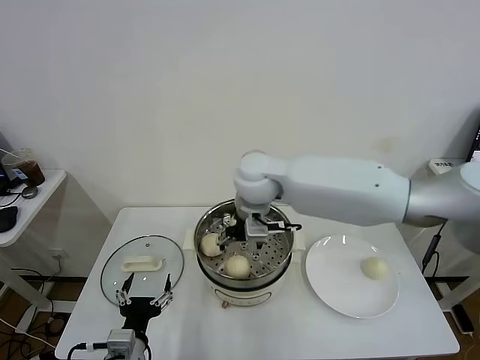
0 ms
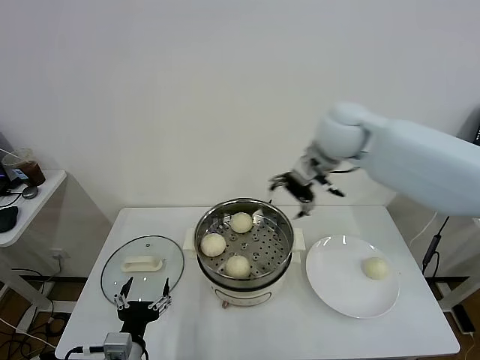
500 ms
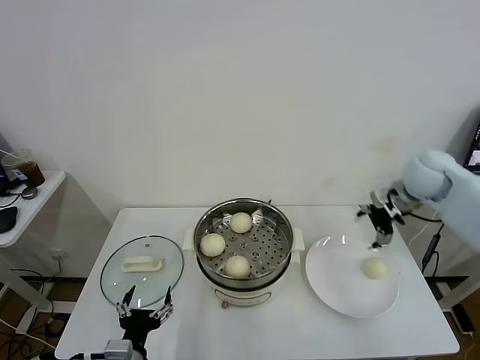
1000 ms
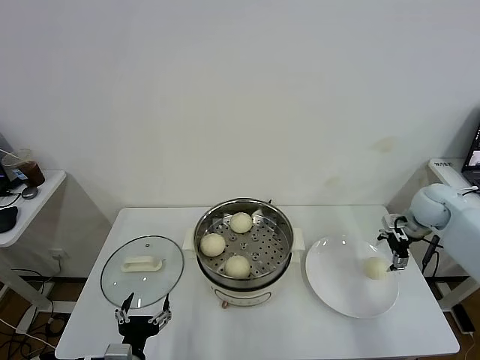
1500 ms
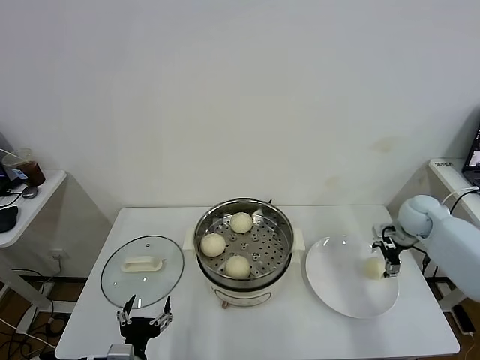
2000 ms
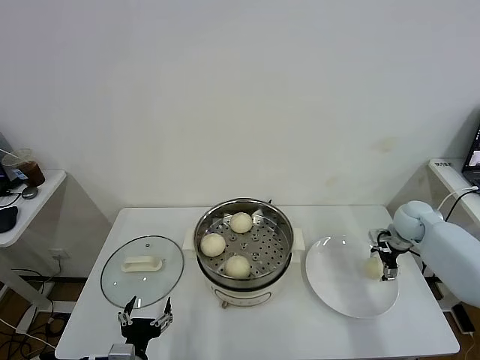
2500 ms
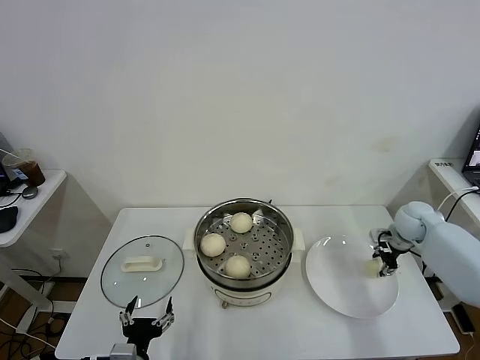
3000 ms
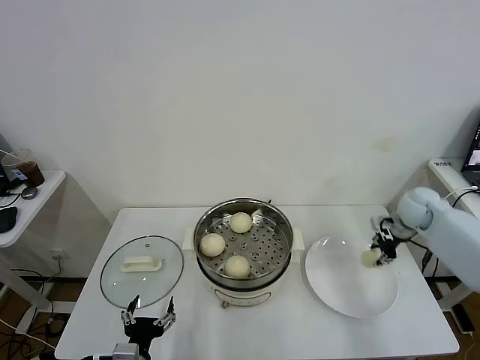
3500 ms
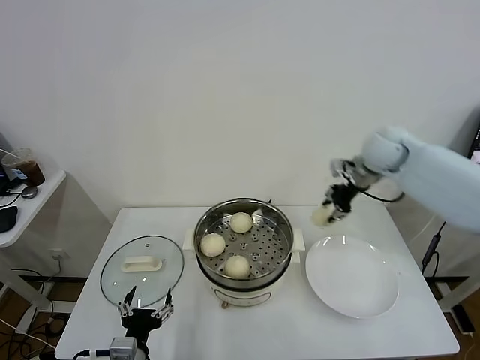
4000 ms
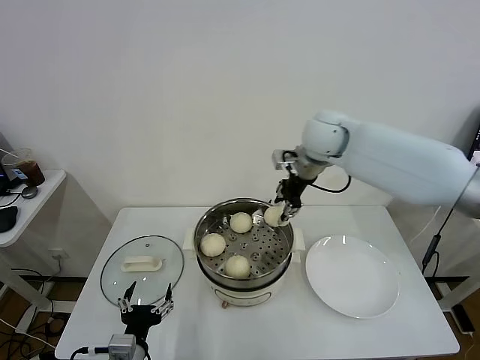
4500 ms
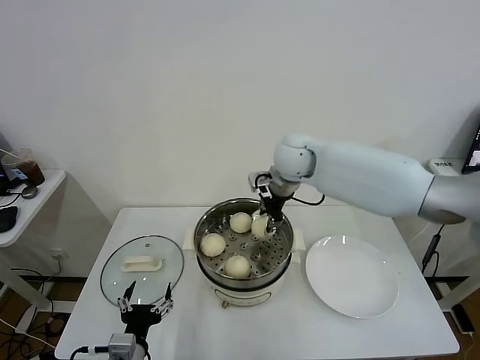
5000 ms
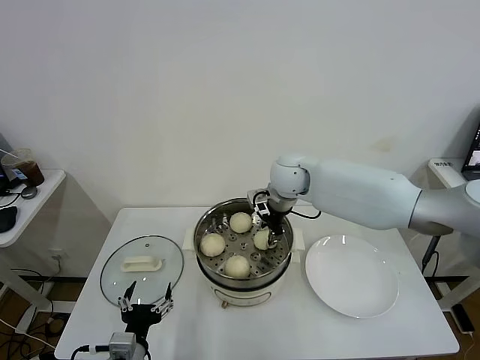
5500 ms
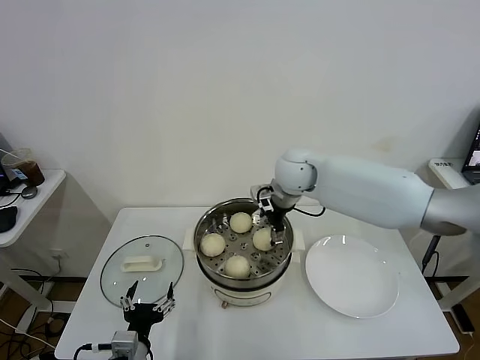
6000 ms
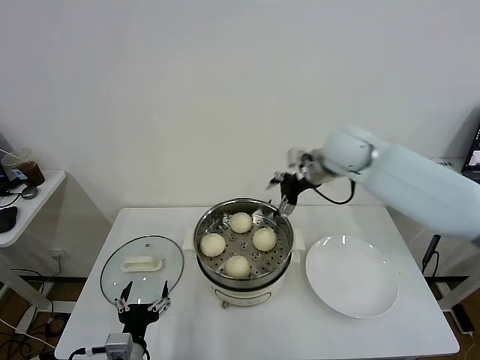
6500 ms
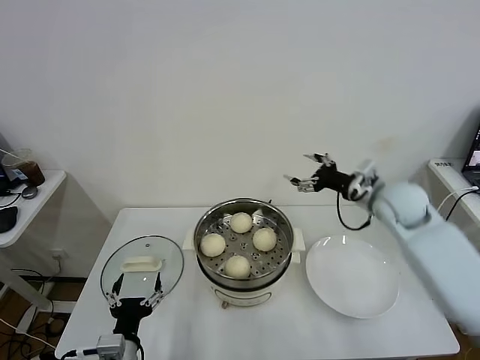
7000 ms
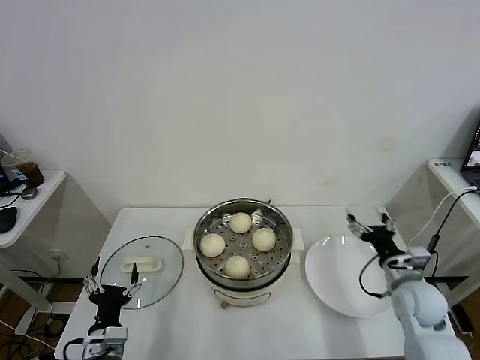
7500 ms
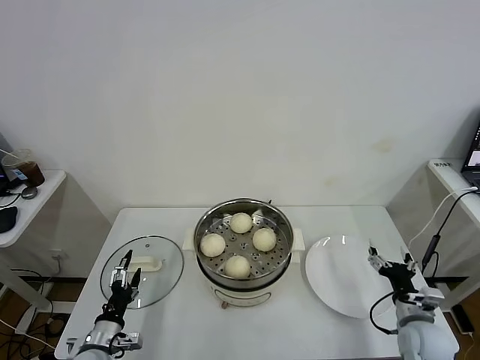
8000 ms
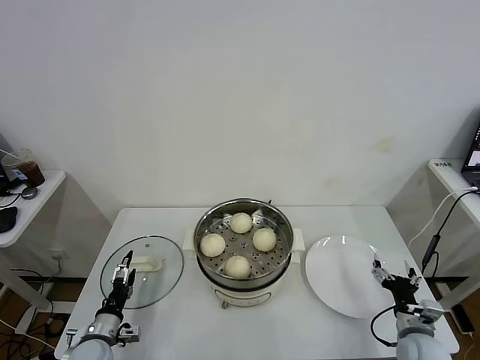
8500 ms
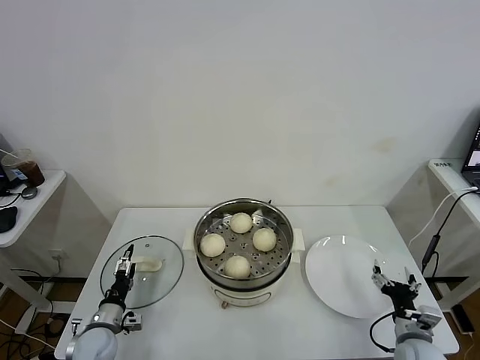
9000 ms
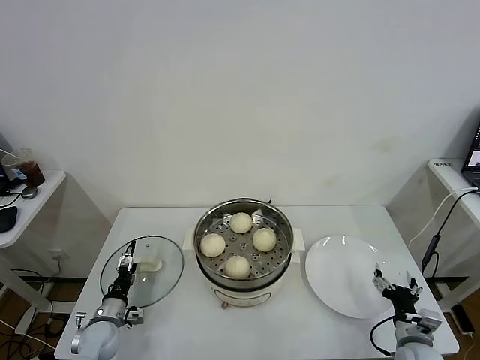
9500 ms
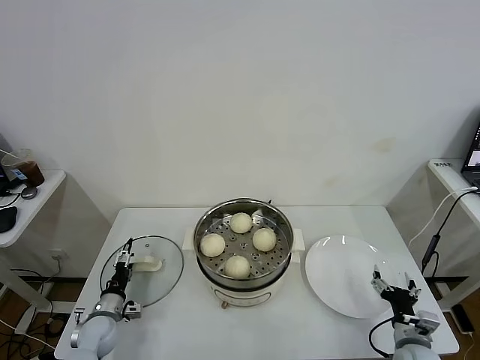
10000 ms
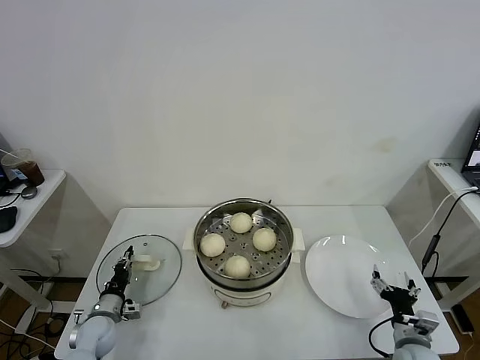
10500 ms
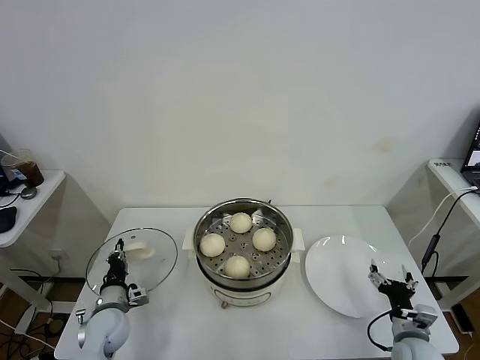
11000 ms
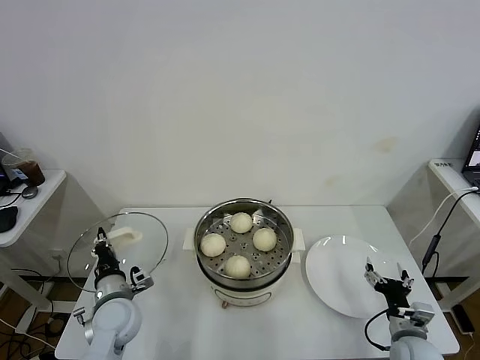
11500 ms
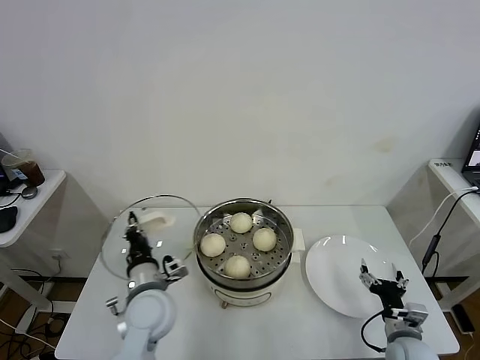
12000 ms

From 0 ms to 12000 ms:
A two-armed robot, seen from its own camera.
Task of the whole recording: take steamed baozi put them in steamer.
Step, from 0 ms to 2500 ms: Grasp the baozi in the plate with right gripper.
Step, from 3500 ms to 6000 ms: Place the baozi on the steamer with right gripper.
Step, from 6500 ms to 10500 ms: Grasp the pot lid with left gripper.
From 0 ms to 2000 ms: The right gripper is displaced to the right and downward by about 40 cm.
From 2000 ms to 4000 ms: The right gripper is displaced upward and to the left by approximately 25 cm, and closes its fingers.
From 4000 ms to 6000 ms: The right gripper is displaced to the left by approximately 20 cm, and opens up.
From 6000 ms to 8000 ms: The left gripper heads to the left, downward and forward, covering roughly 15 cm. The right gripper travels backward, to the right and downward by approximately 50 cm.
From 8000 ms to 10000 ms: The left gripper shifts some 10 cm forward and downward. The right gripper ends up approximately 5 cm from where it was.
From 10000 ms to 12000 ms: The left gripper goes some 25 cm upward and to the right, and closes its fingers.

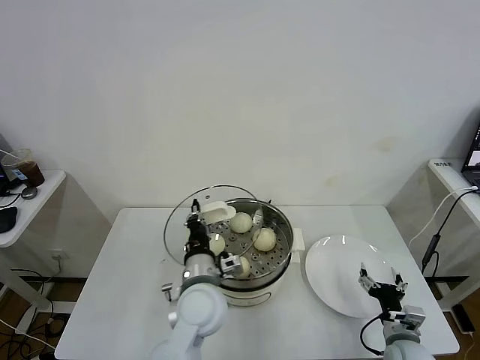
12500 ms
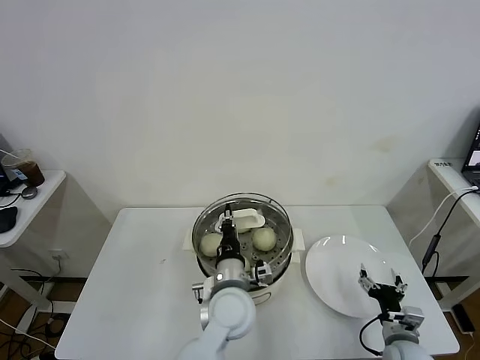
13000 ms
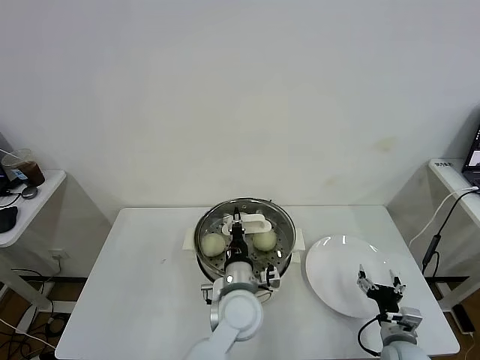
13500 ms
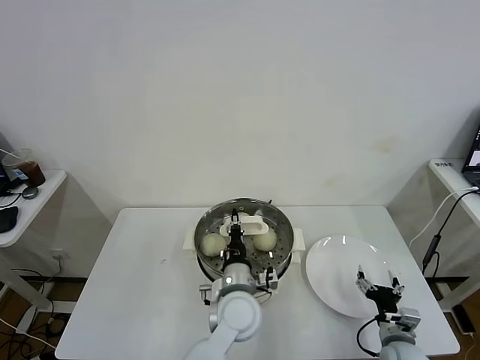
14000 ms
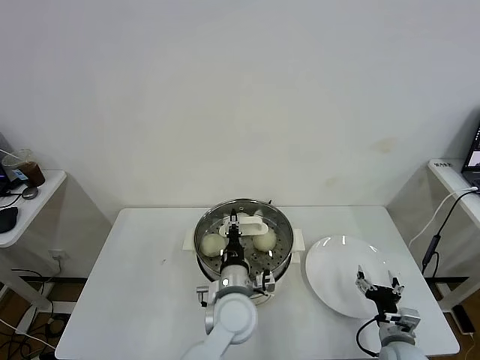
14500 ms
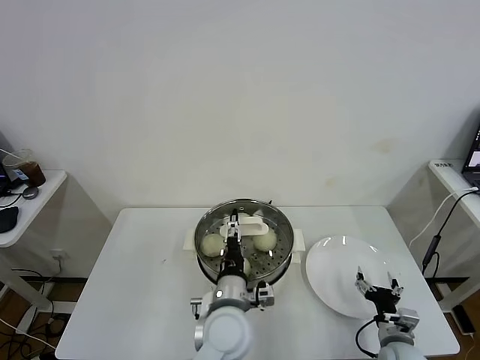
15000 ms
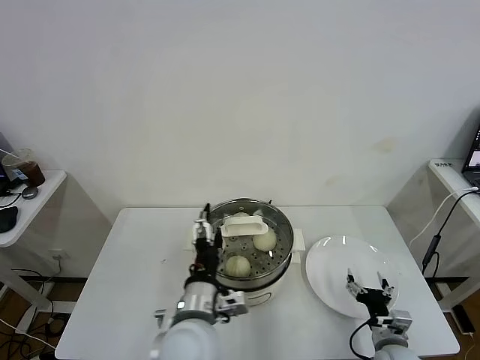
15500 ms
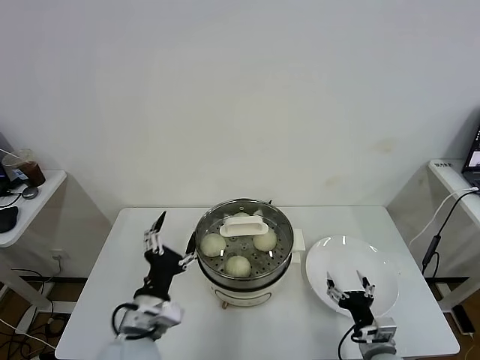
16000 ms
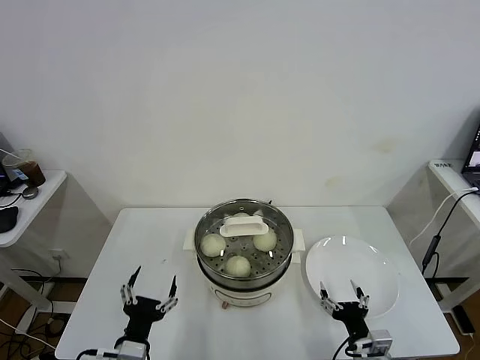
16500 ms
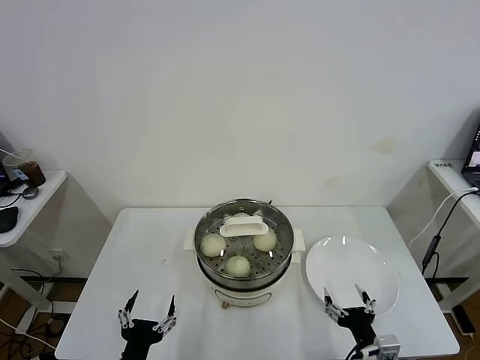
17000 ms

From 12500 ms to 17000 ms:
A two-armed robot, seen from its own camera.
Task of the whole recording: take steamed baozi put them in steamer.
Step, from 12500 ms to 14500 ms: Place the pot lid on the steamer with left gripper.
From 12500 ms to 14500 ms: The left gripper moves to the right and downward, about 10 cm.
From 14500 ms to 17000 ms: The left gripper is displaced to the left and backward by some 30 cm, and opens its fingers. Meanwhile the right gripper shifts about 10 cm backward and to the left.

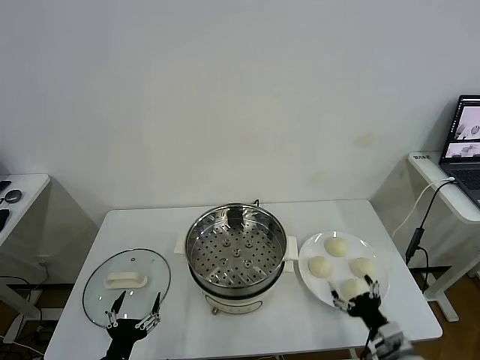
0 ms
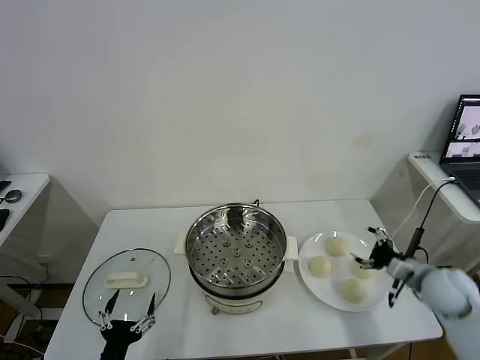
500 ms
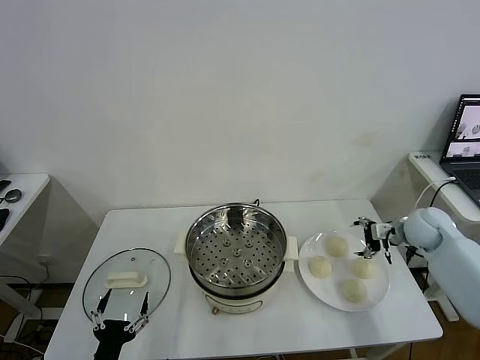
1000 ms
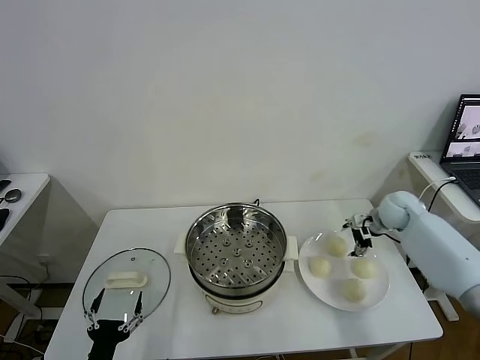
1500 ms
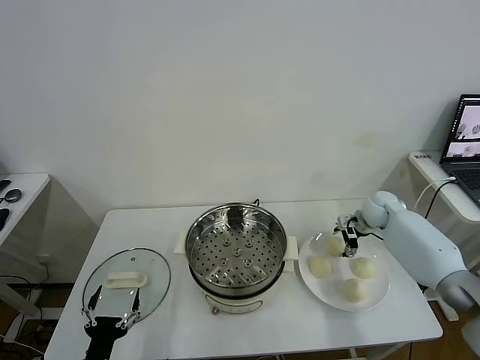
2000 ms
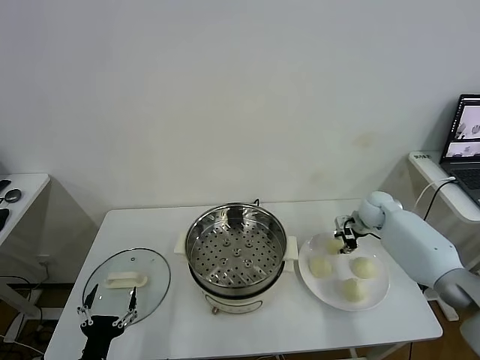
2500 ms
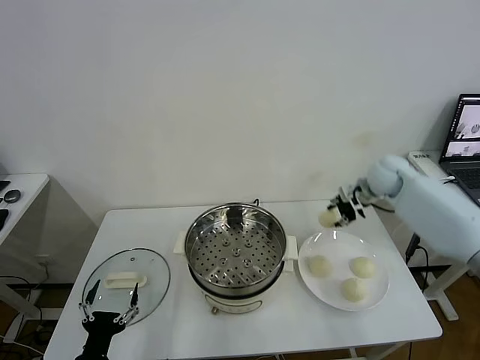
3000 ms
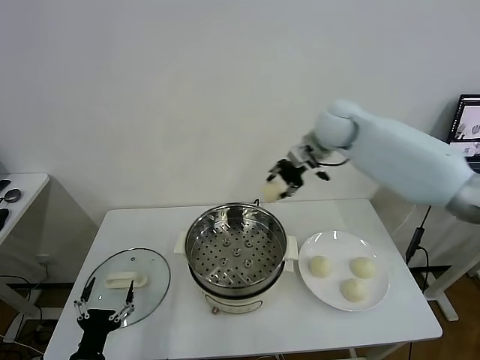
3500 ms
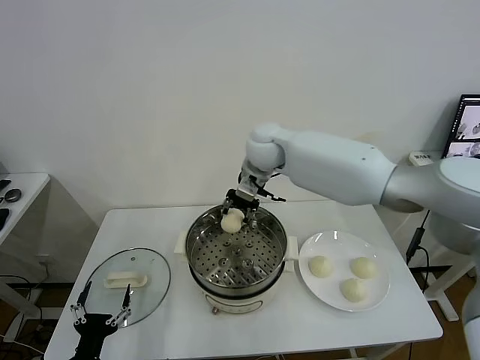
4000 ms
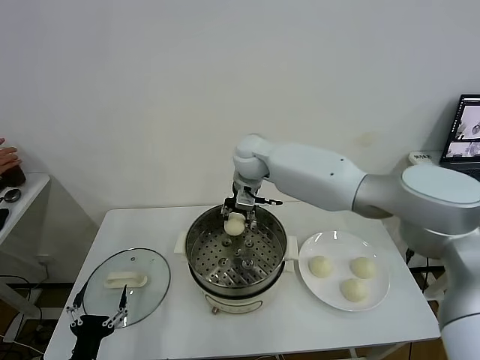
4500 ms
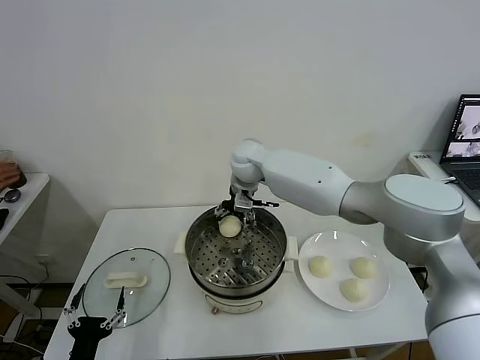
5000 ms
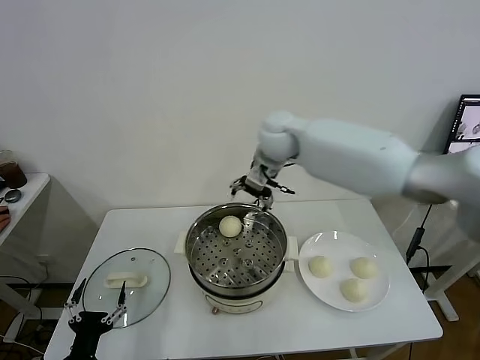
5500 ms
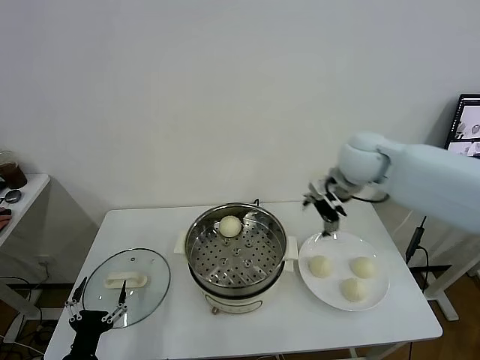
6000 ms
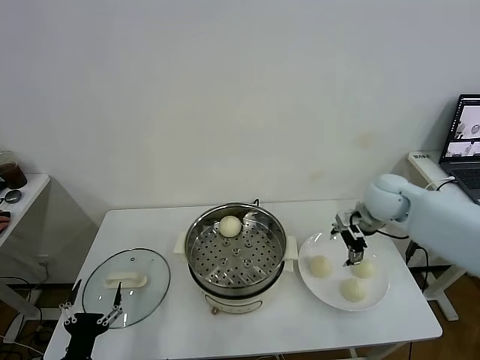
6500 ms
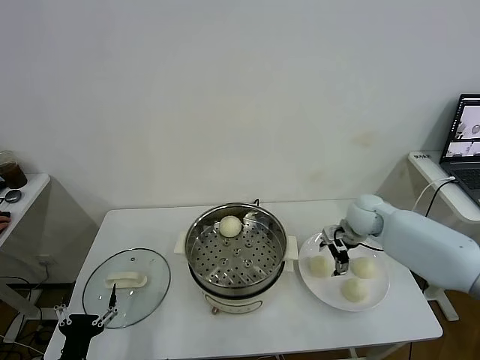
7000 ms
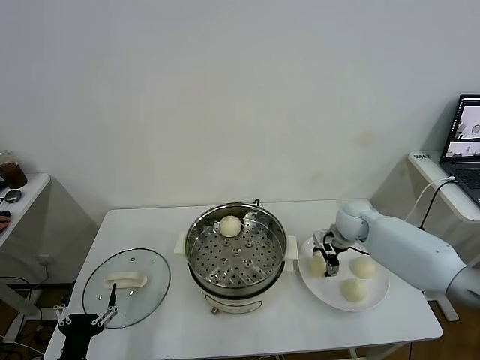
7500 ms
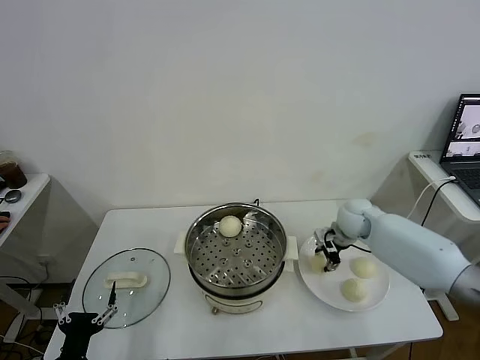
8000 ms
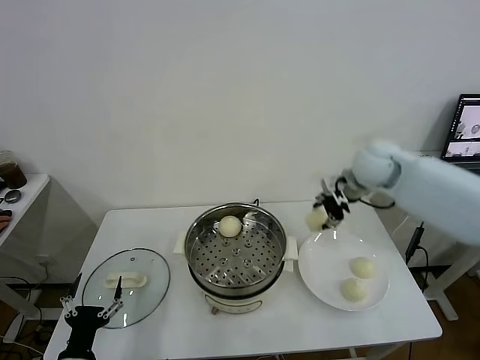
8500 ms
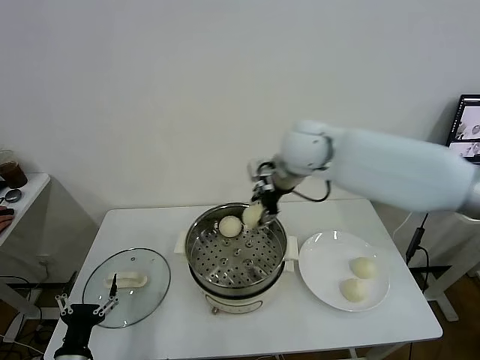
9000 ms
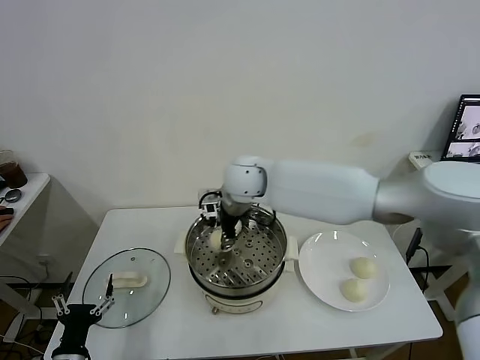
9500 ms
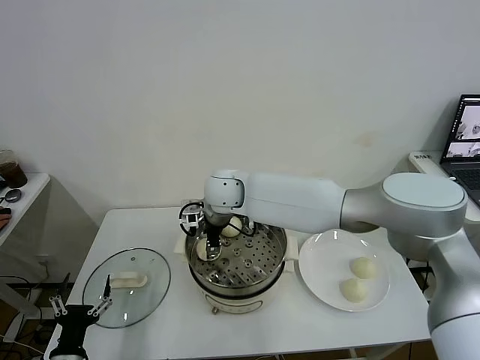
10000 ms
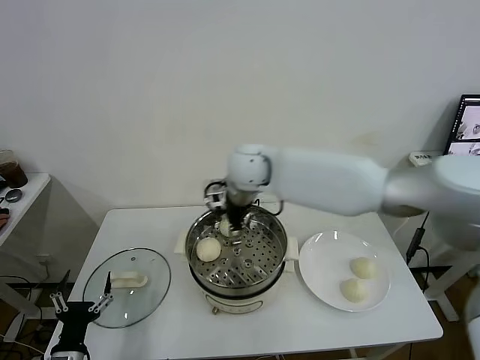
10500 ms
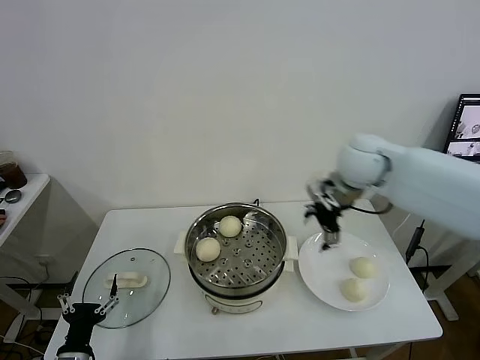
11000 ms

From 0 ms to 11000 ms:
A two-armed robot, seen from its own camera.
Task of the whole recording: take steamed baozi put them in steamer.
Step, from 0 ms to 2000 ms: Grasp the baozi in the plate with right gripper.
Step, from 2500 ms to 5000 ms: Place the baozi on the steamer with right gripper.
Step, from 5500 ms to 7500 ms: Grasp the baozi in the plate with right gripper.
Step, from 8000 ms to 10000 ms: Place the baozi on the steamer with right gripper.
From 2000 ms to 3500 ms: The right gripper travels upward and to the left by about 35 cm, and closes up.
From 3500 ms to 5500 ms: The right gripper travels to the left and back again, roughly 15 cm each way, and opens its fingers.
From 5500 ms to 7500 ms: The right gripper is displaced downward and to the right by some 30 cm, and closes its fingers.
From 7500 ms to 9000 ms: The right gripper is displaced upward and to the left by about 30 cm.
From 9000 ms to 11000 ms: The right gripper moves to the right, approximately 15 cm, and opens its fingers.
